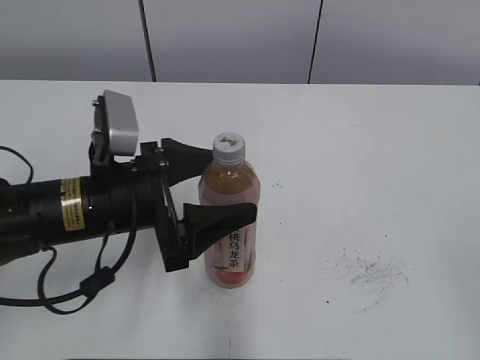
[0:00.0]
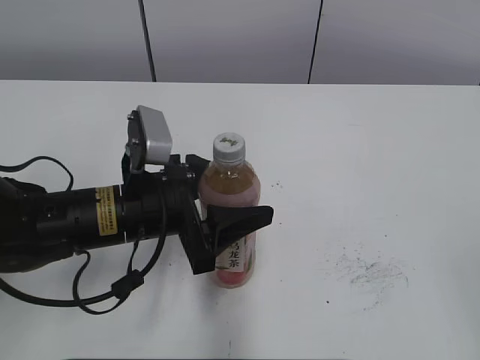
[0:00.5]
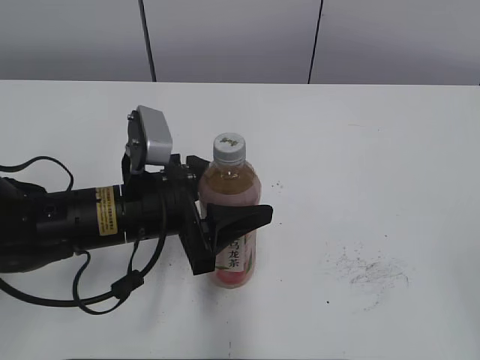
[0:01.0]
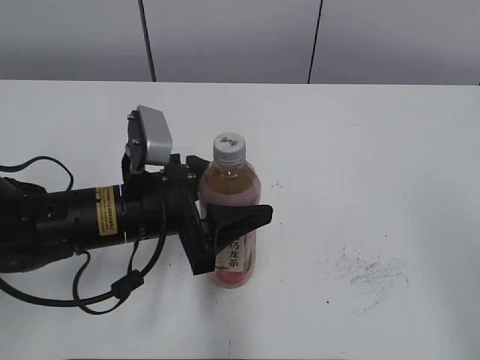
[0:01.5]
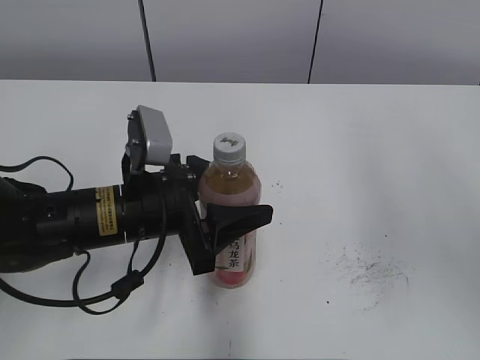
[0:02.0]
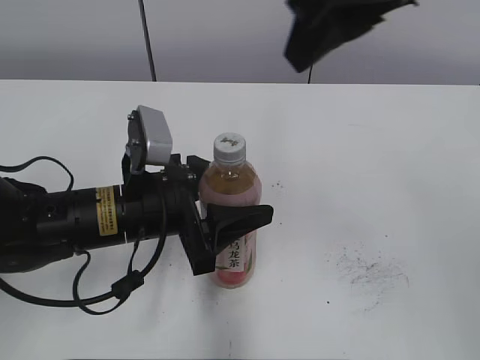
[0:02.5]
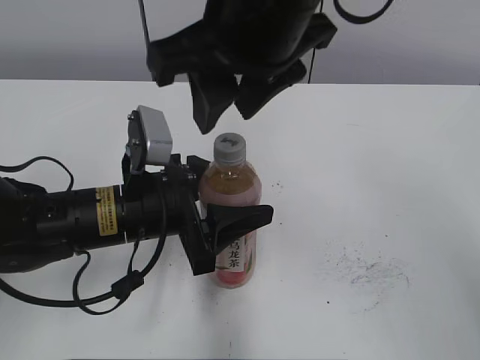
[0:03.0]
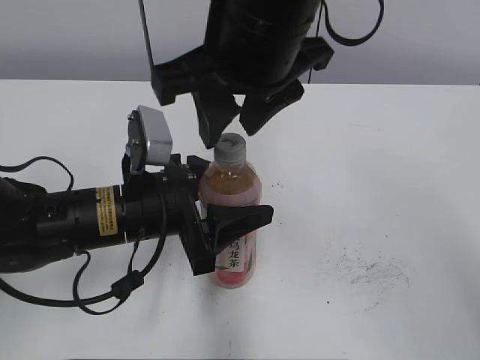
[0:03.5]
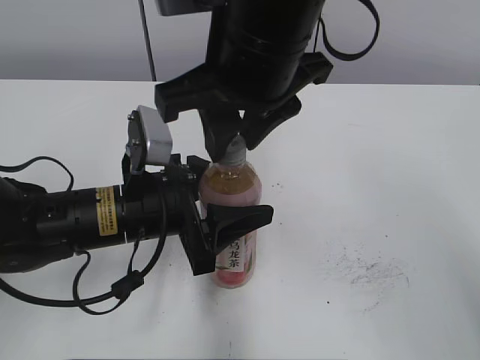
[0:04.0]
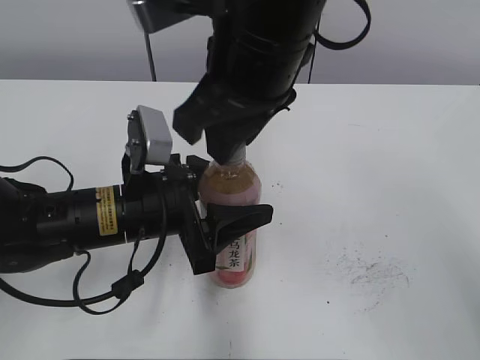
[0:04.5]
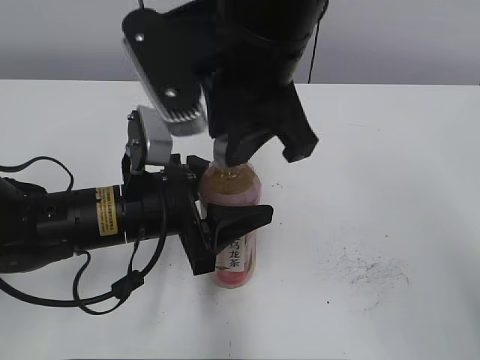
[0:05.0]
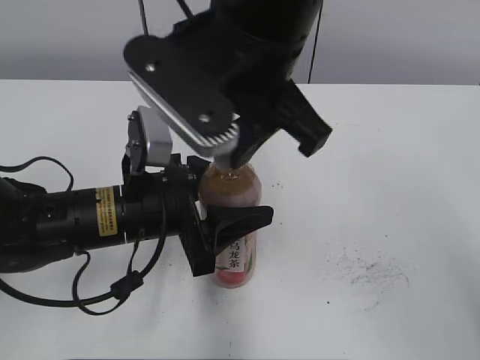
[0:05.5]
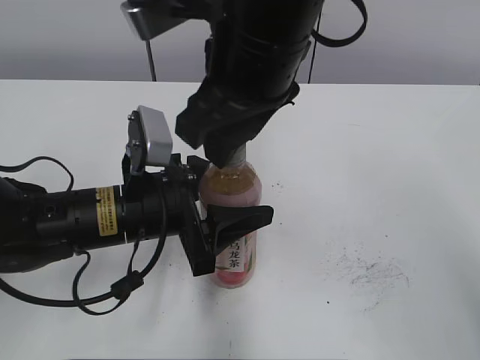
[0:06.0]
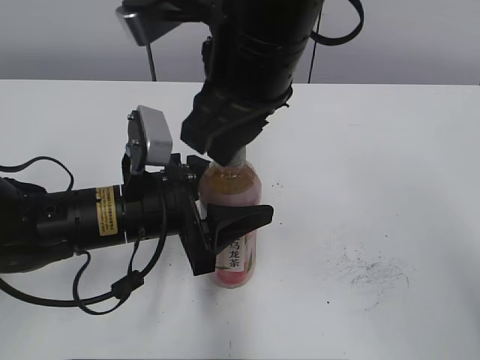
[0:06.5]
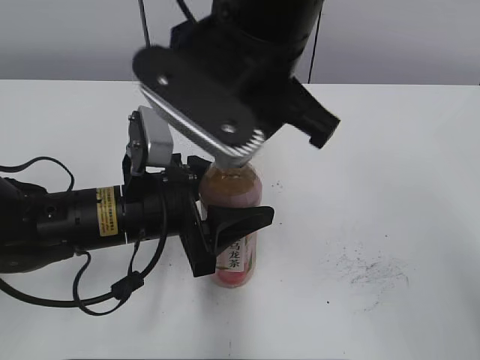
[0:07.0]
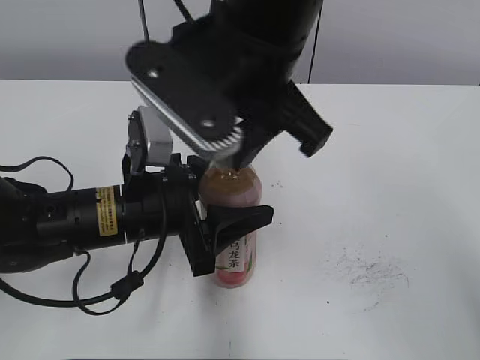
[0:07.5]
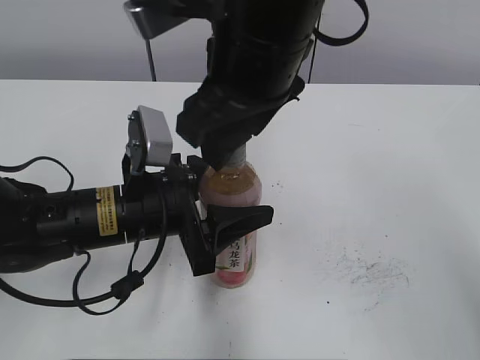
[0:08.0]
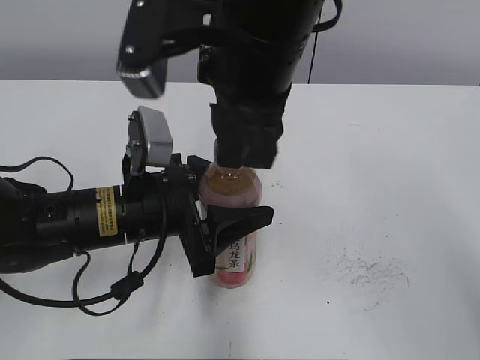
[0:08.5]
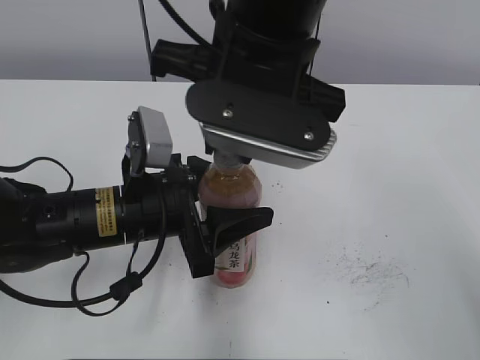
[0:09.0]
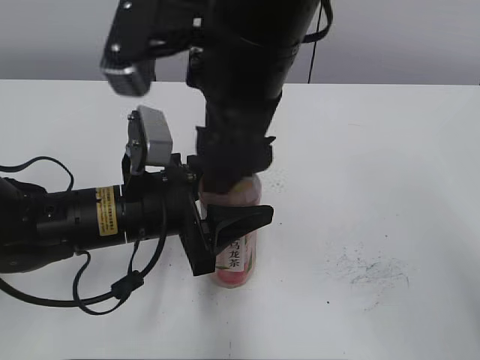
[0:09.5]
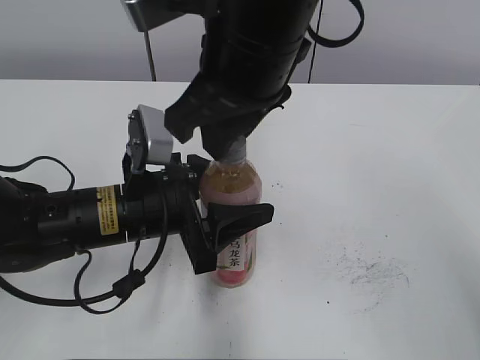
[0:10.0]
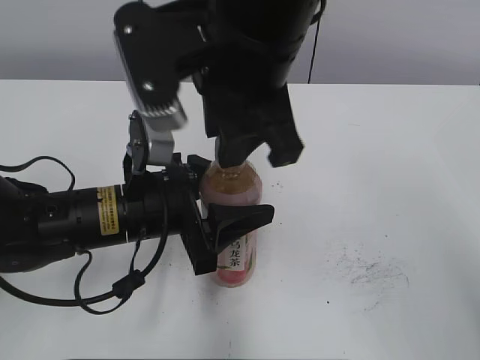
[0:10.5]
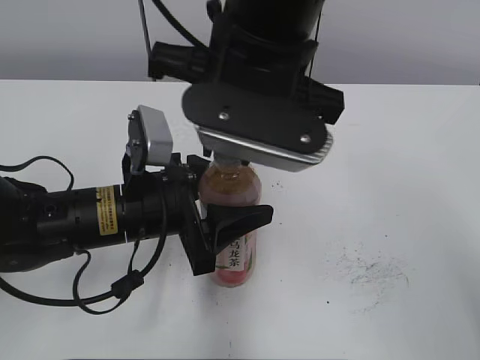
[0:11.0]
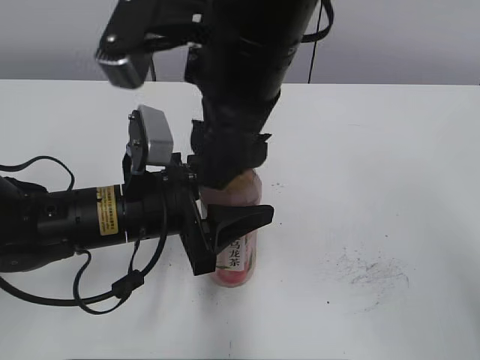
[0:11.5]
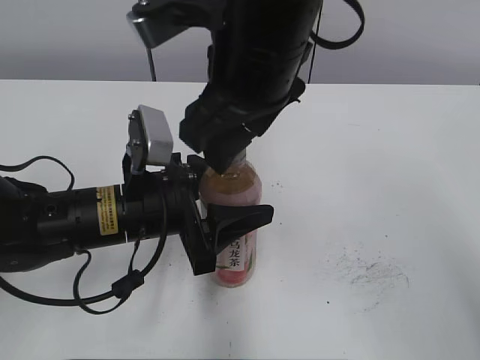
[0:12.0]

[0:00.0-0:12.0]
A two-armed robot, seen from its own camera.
0:00.0 to 0:02.0: The right gripper is displaced forward and upward by some 20 cm, and closes up. The left gripper closes its fingers.
0:02.0 to 0:04.0: The right gripper travels to the left by about 20 cm.
0:06.0 to 0:08.0: The right gripper closes, then opens again.
0:08.0 to 0:10.0: The right gripper closes its fingers.
0:10.0 to 0:12.0: The right gripper opens up.

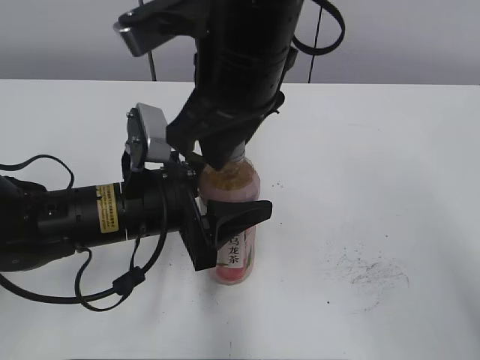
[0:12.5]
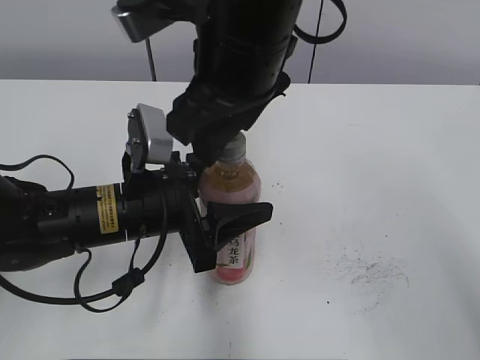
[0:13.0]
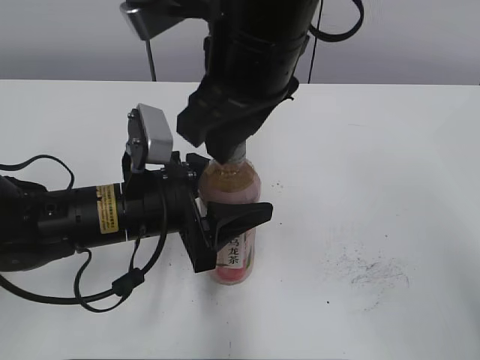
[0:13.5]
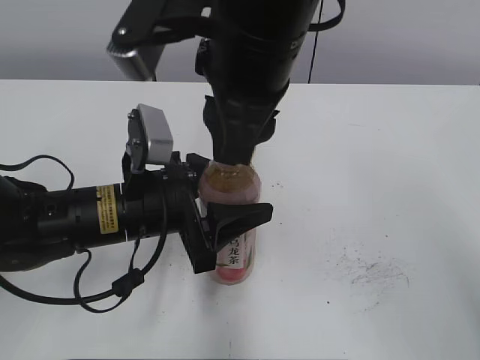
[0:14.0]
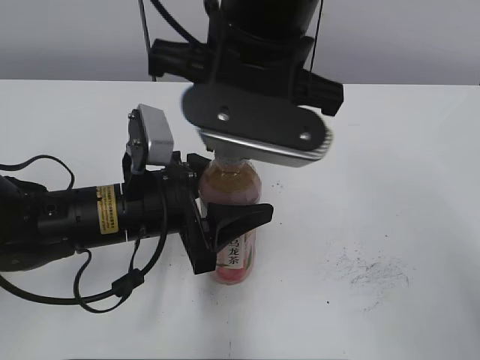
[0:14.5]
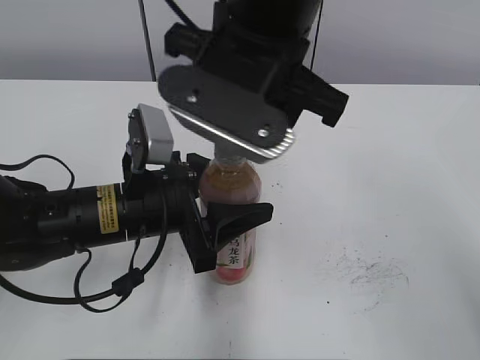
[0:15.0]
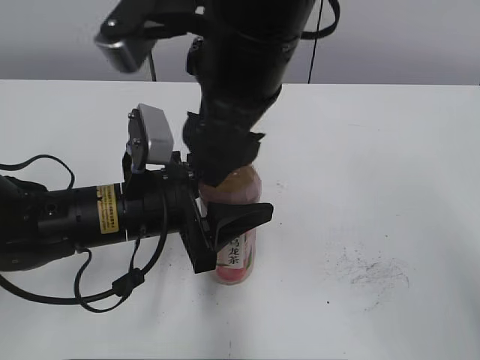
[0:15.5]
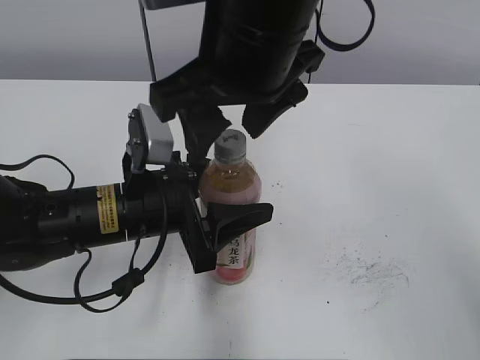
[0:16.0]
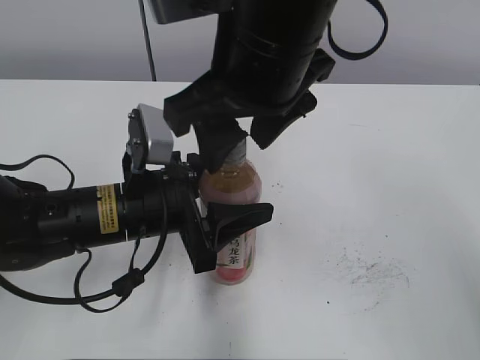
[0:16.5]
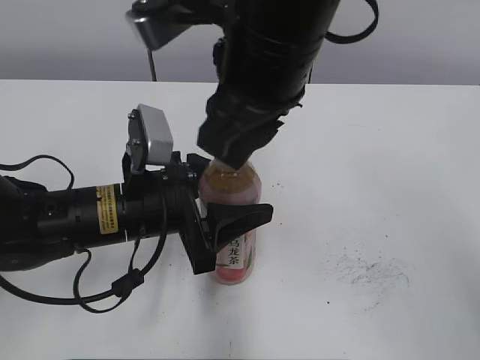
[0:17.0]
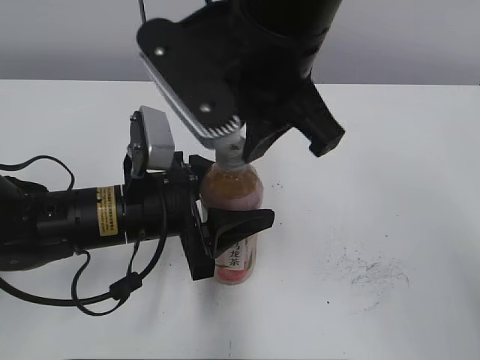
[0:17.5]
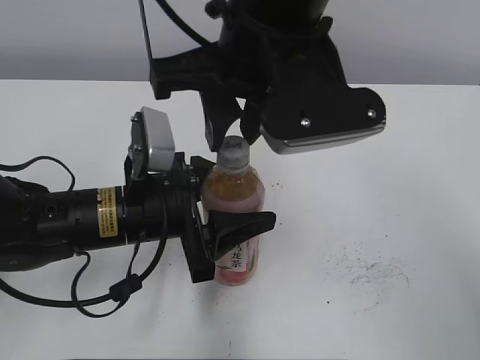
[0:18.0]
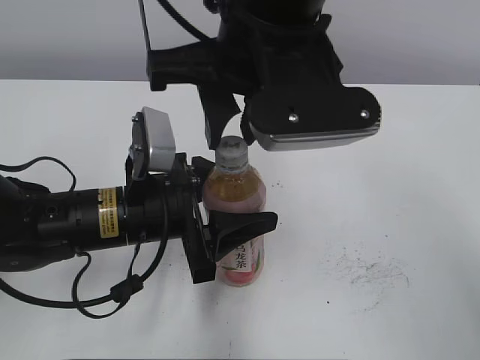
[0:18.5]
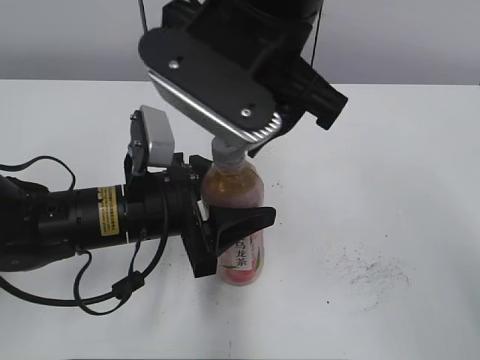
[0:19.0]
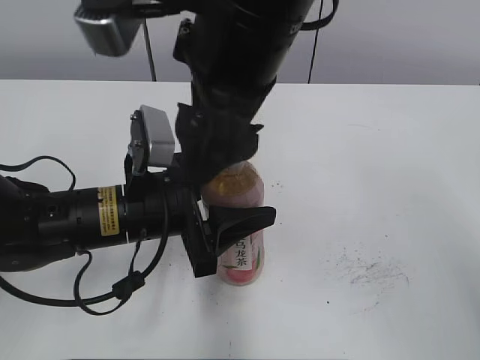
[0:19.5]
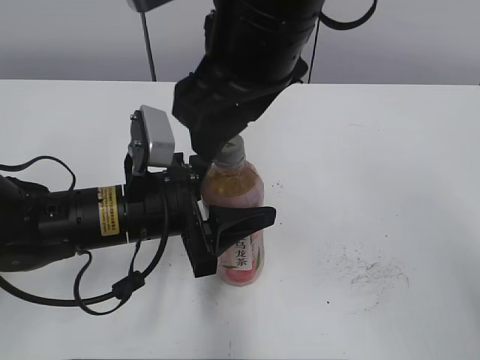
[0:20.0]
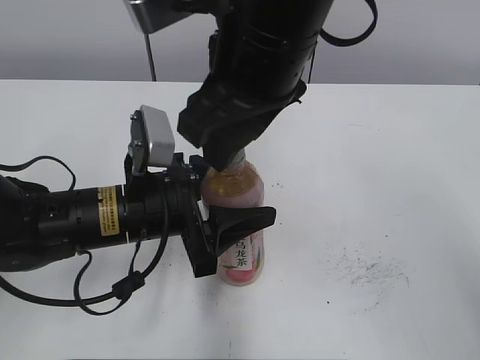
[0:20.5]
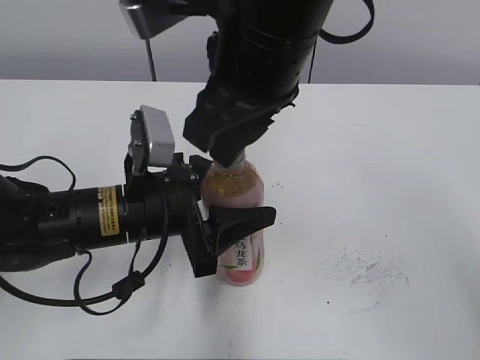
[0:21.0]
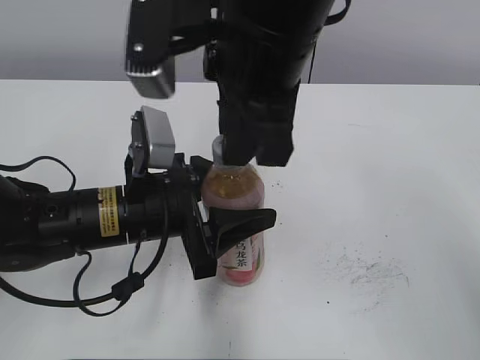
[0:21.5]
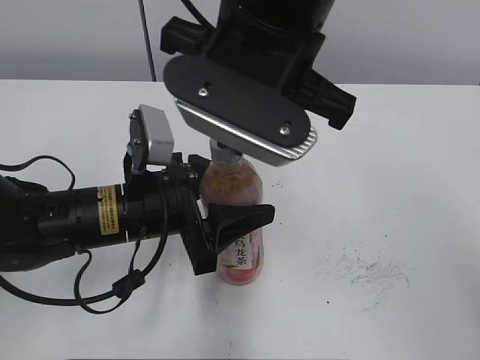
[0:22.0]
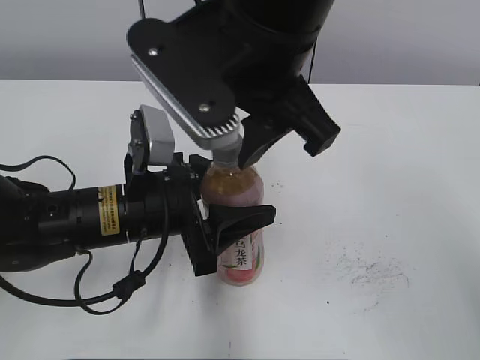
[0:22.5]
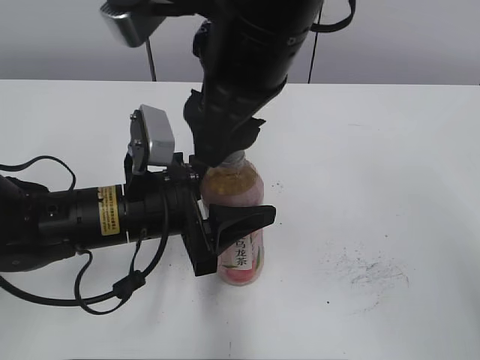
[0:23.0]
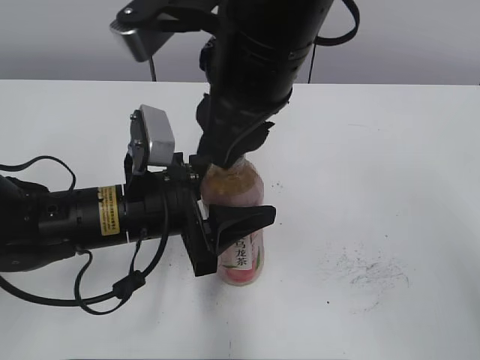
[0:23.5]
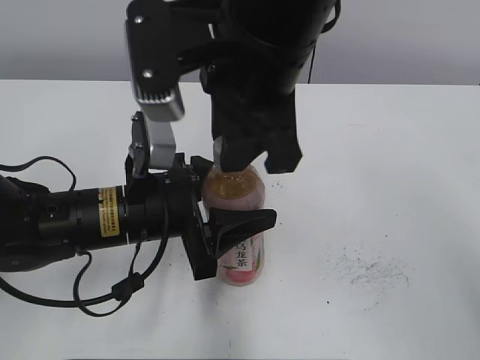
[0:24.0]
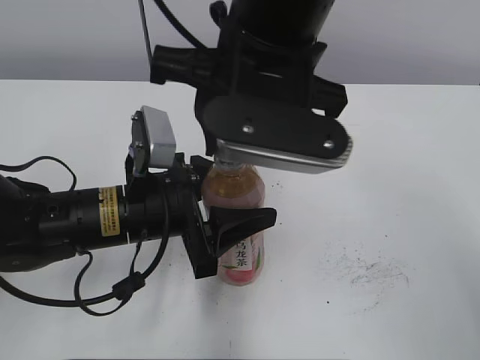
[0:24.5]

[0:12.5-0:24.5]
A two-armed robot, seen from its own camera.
0:12.5 to 0:14.5: The right gripper opens and closes again.
0:14.5 to 0:16.5: The right gripper opens.
0:16.5 to 0:18.5: The right gripper closes up.
0:18.5 to 0:20.5: The right gripper opens.
0:20.5 to 0:22.5: The right gripper closes and opens again.

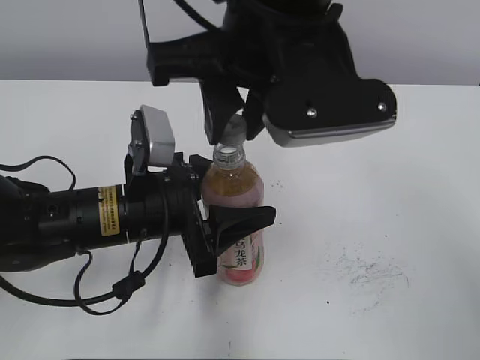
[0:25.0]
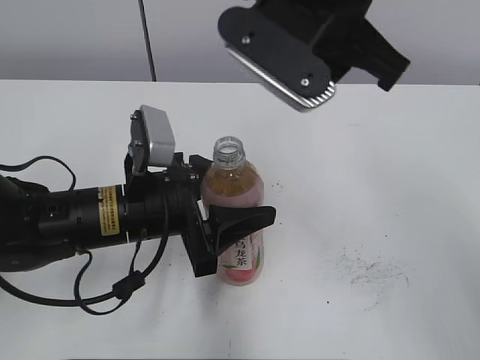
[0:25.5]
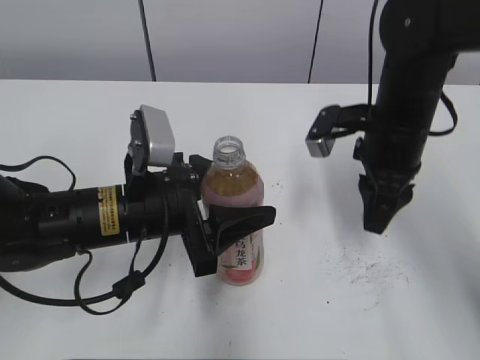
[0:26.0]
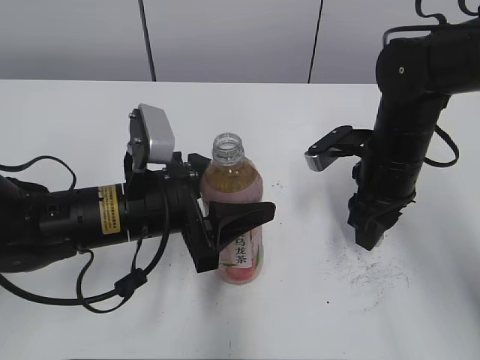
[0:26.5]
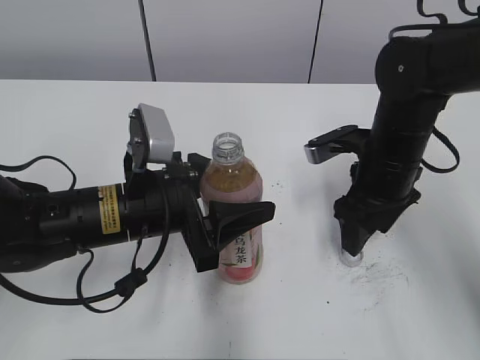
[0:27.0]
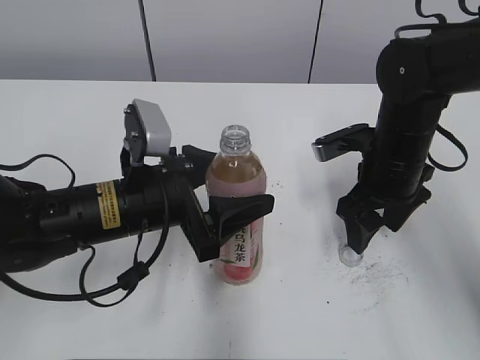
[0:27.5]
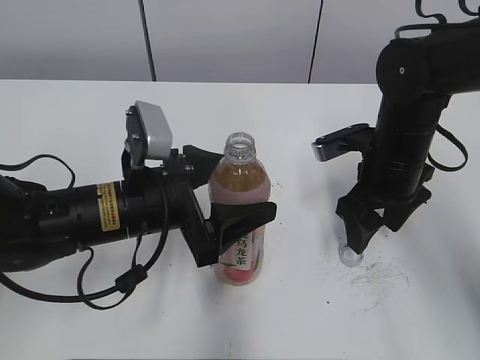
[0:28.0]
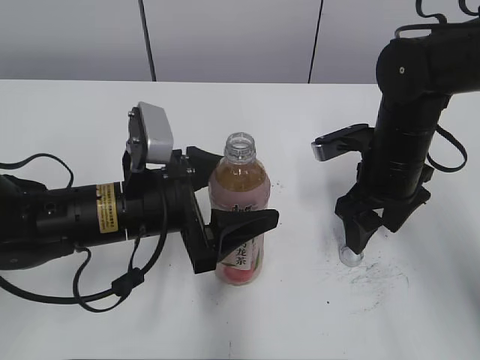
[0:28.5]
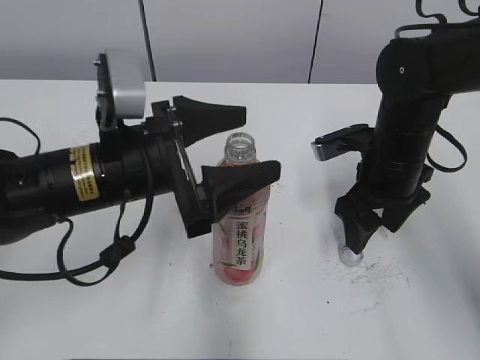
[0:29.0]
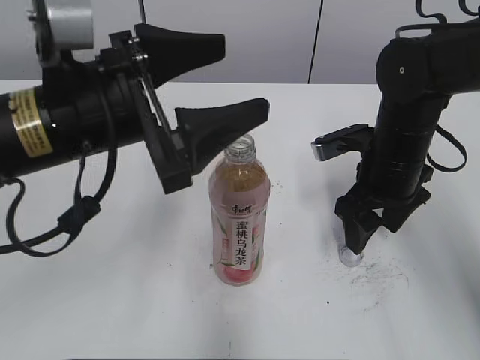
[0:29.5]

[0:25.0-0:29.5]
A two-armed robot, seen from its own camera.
Step, 0:25.0 to 0:26.5: Place the bottle cap on the right.
Step, 0:27.0 to 0:27.5: Place the Peach Oolong Tea with the left hand.
0:25.0 to 0:27.0: The right gripper shifts about 25 cm downward, to the right and forward, and opens.
0:27.0 to 0:29.5: The left gripper is displaced upward by some 10 cm, and opens.
